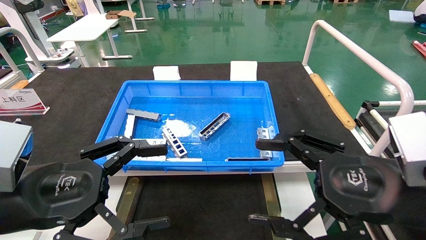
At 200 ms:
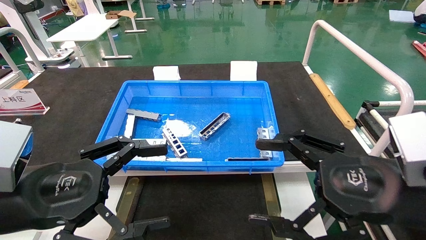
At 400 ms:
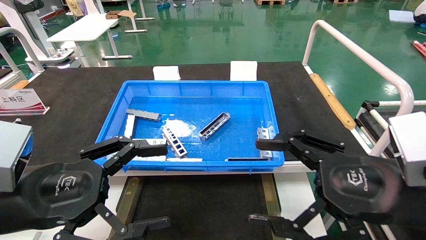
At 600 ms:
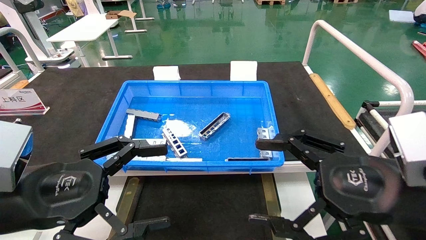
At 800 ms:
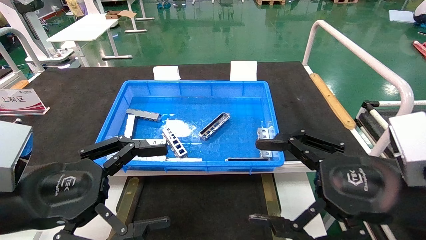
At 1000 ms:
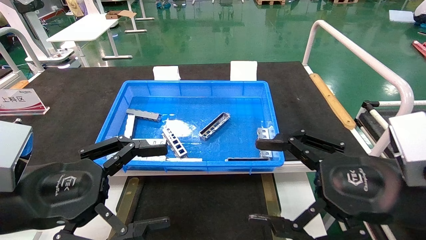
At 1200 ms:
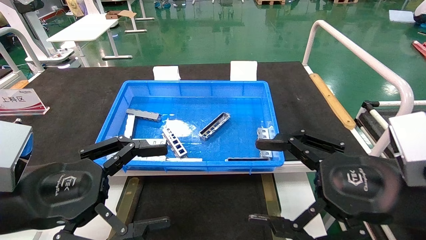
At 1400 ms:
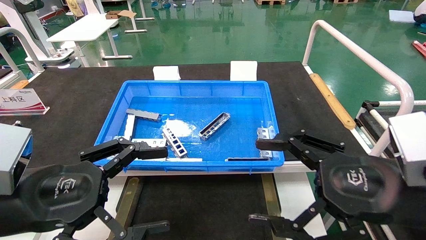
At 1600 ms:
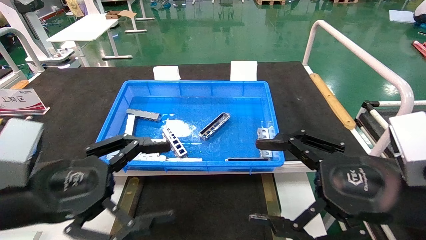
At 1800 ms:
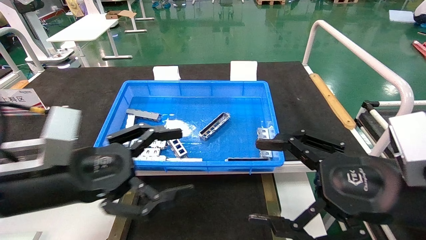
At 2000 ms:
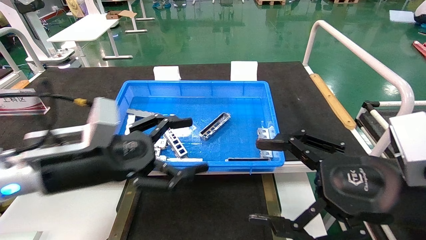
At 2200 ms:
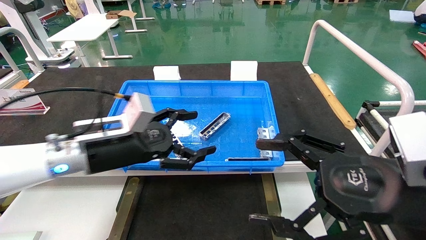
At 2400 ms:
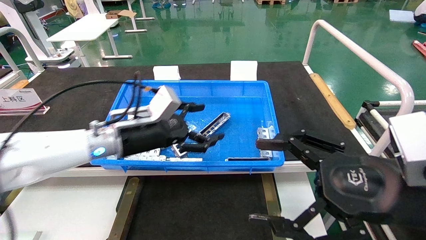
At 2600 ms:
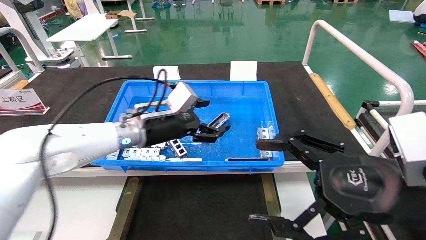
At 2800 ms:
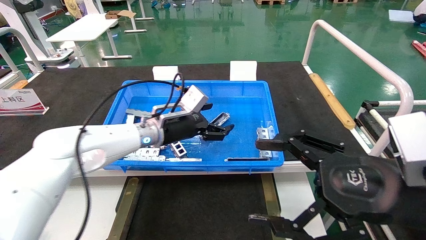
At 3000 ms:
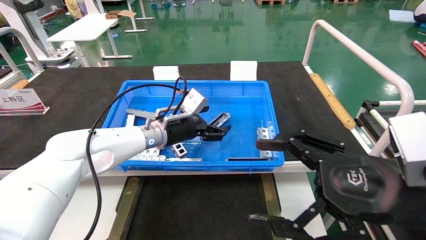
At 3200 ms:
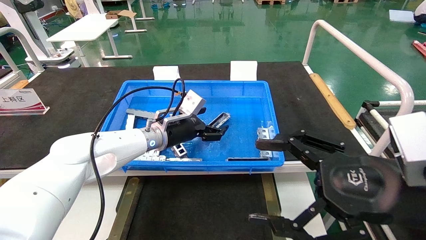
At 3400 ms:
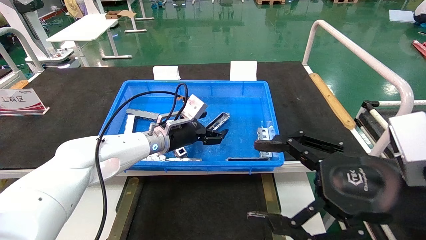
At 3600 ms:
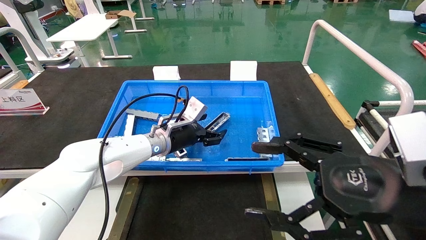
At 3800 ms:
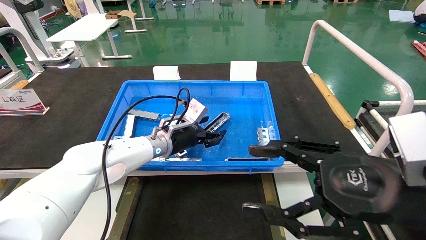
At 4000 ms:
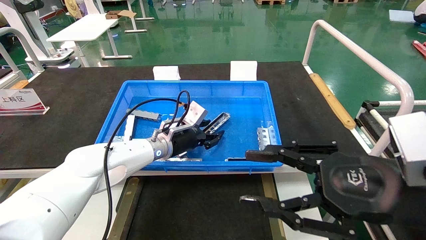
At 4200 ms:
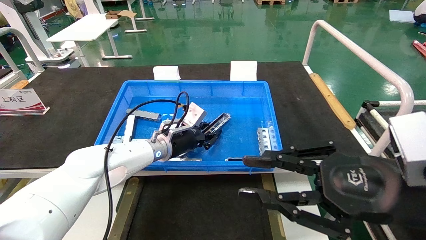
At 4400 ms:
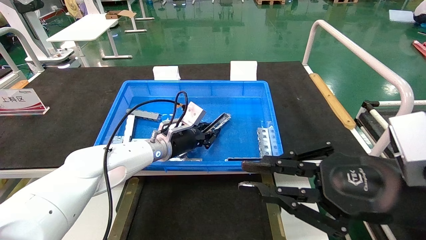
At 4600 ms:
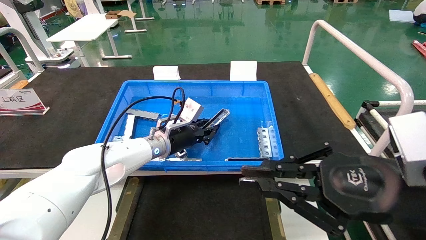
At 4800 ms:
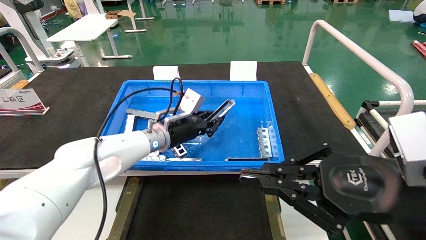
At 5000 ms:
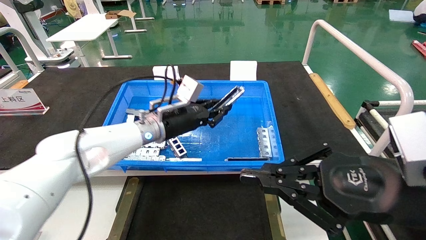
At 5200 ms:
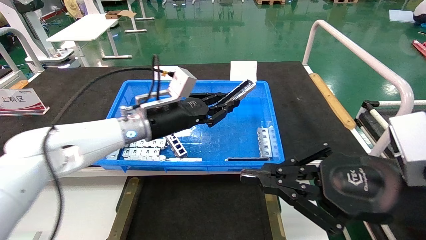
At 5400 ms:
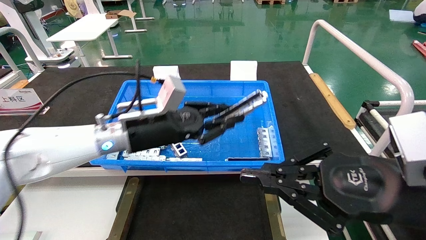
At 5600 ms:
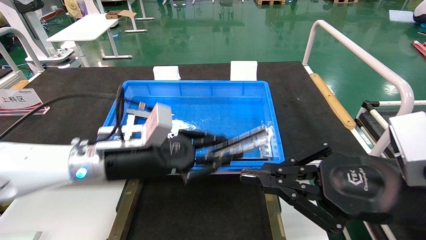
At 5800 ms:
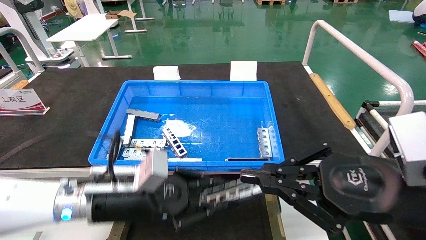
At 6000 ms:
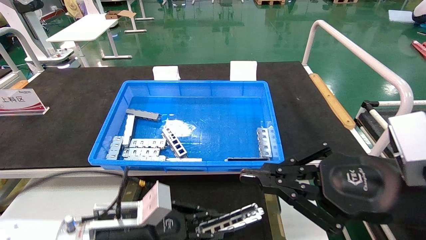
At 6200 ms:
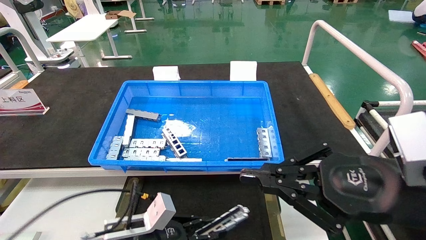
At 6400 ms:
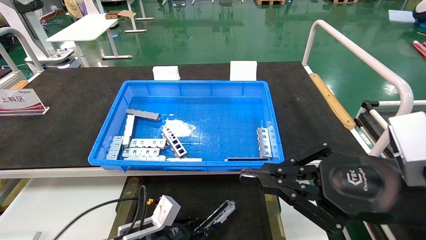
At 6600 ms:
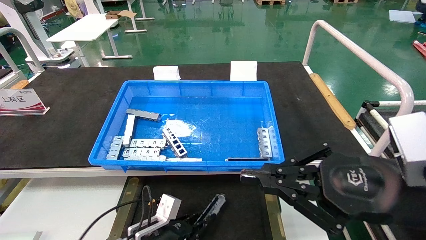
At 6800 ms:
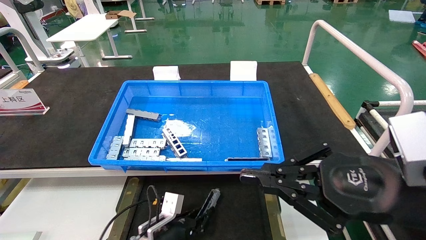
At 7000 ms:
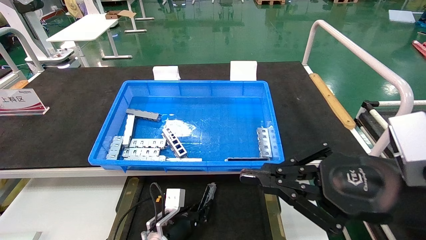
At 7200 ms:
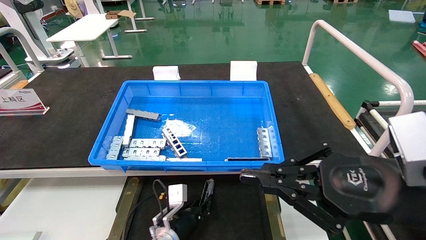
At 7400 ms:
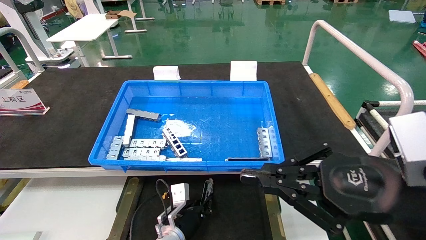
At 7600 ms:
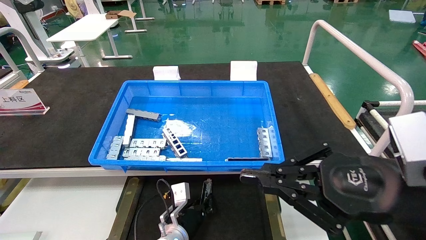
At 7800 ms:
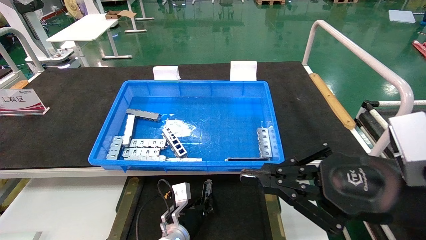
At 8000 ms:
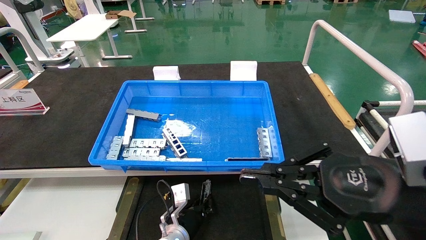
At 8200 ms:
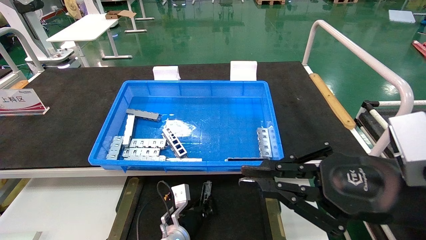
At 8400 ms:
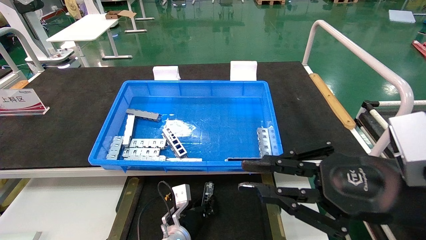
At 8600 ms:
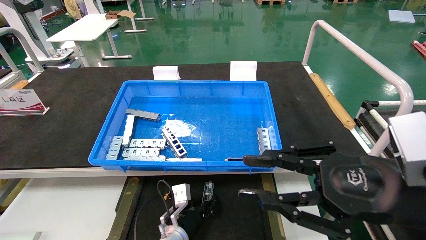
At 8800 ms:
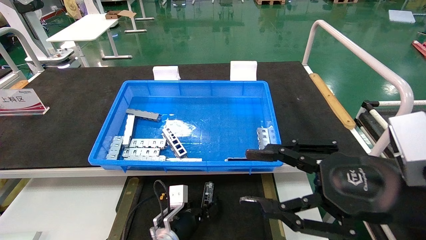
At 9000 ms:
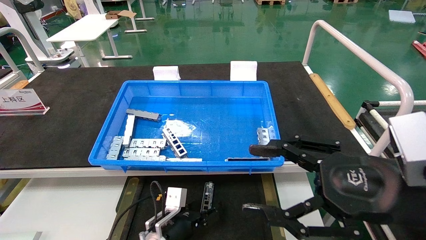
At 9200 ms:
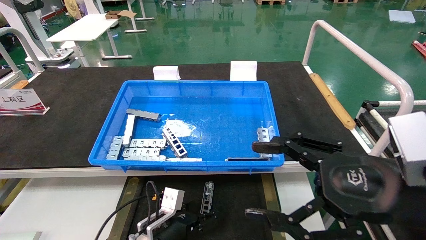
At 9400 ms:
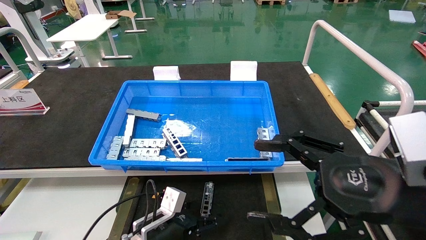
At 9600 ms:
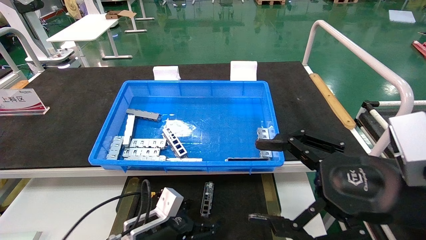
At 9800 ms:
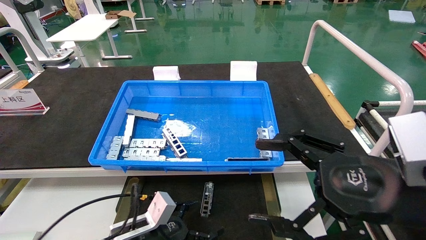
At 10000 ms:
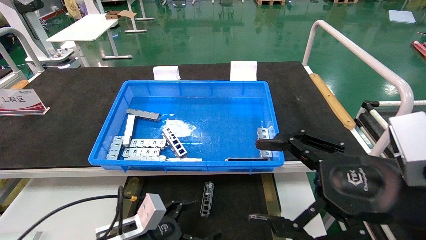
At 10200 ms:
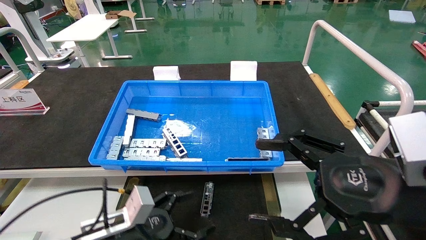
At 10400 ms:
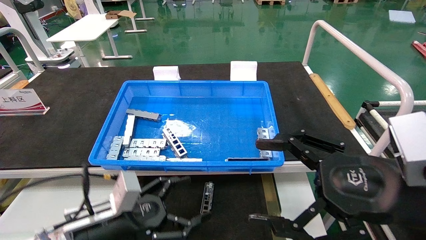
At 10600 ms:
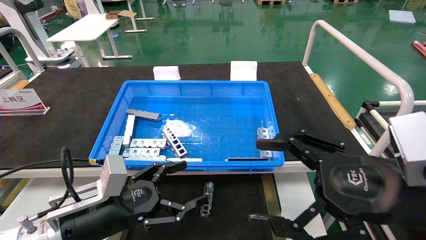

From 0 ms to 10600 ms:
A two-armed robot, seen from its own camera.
Task of the whole recording: Grasp the part with one hand and place it on the black container.
Step, from 1800 ms to 4800 ms: Pick up the front USB bracket from the feeding area.
Step, from 5000 ms to 8800 ms: Place the front USB bracket into the box.
From 0 ms to 1600 ms: The grippers stay close to where they were, moving slightly.
From 1600 ms to 3000 ms: The left gripper goes about 30 cm forward and to the right.
From 3000 ms to 4600 ms: The left gripper closes. Meanwhile the right gripper closes up.
From 4600 ms to 6000 ms: The left gripper is displaced backward and downward by roughly 20 cm.
From 6000 ms to 7600 ms: The left gripper goes about 20 cm downward, forward and to the right.
From 7600 ms to 9000 ms: The left gripper moves roughly 5 cm, and opens; the right gripper opens up.
From 9000 ms to 10600 ms: The right gripper opens up, while the left gripper is displaced upward, to the left and backward by some 20 cm.
